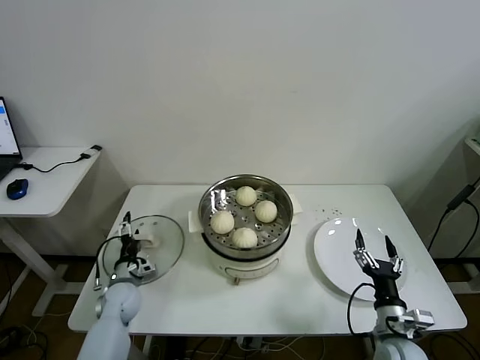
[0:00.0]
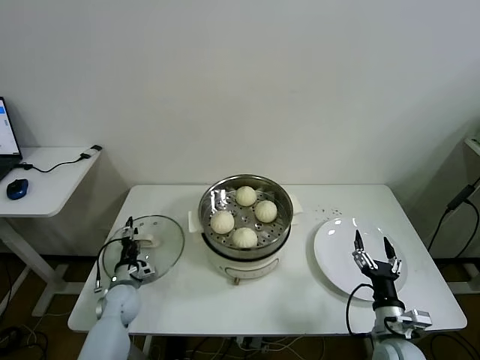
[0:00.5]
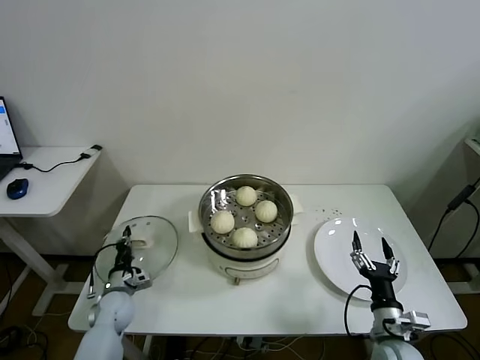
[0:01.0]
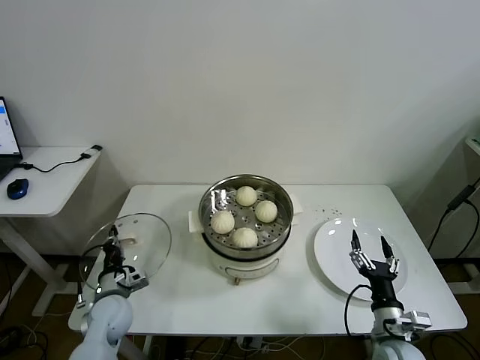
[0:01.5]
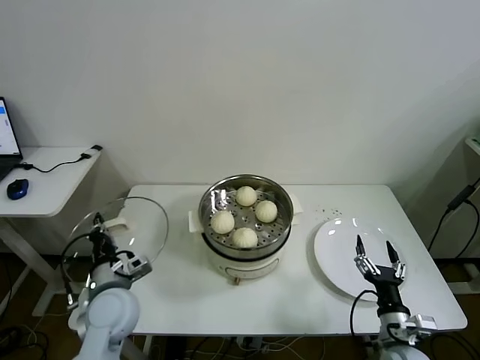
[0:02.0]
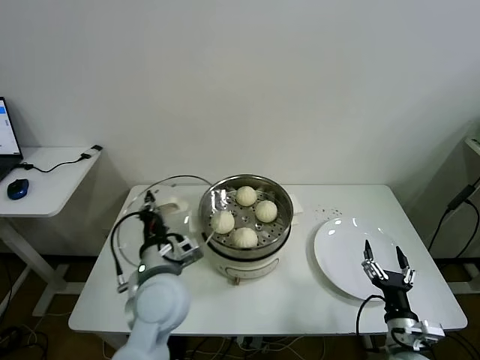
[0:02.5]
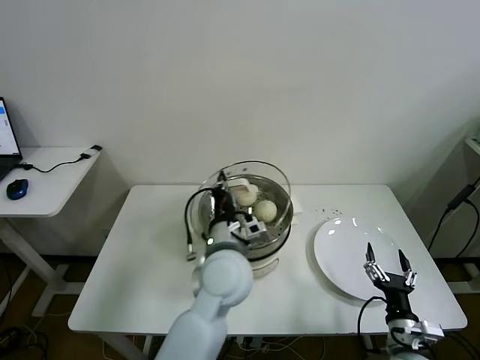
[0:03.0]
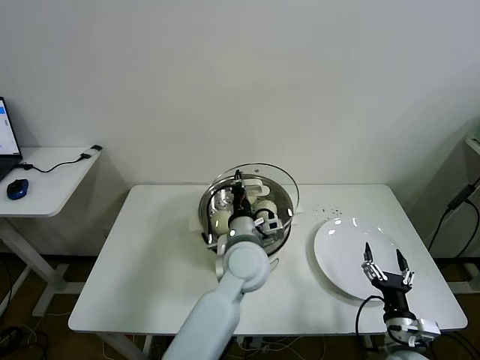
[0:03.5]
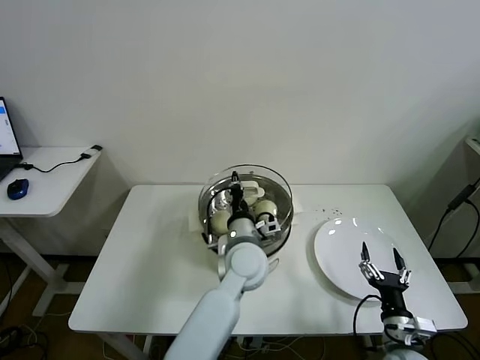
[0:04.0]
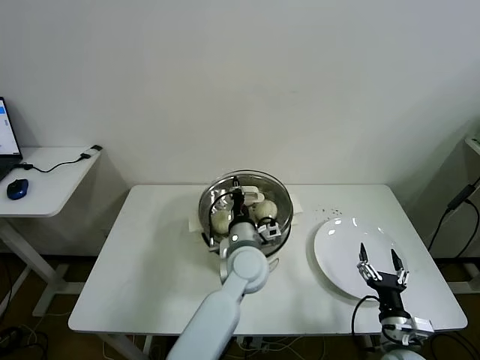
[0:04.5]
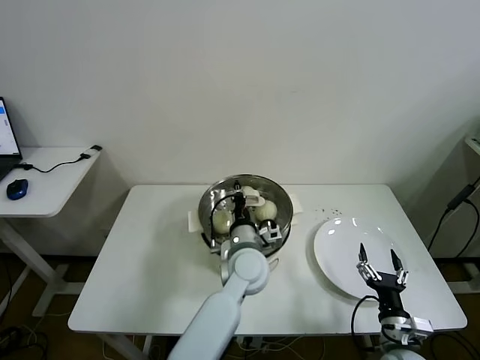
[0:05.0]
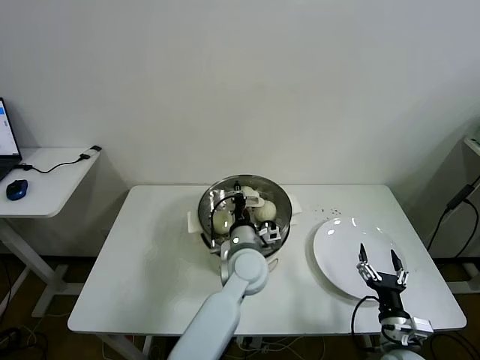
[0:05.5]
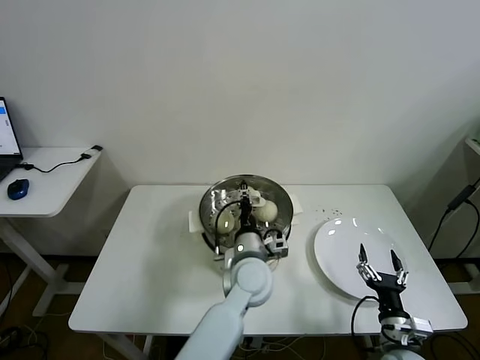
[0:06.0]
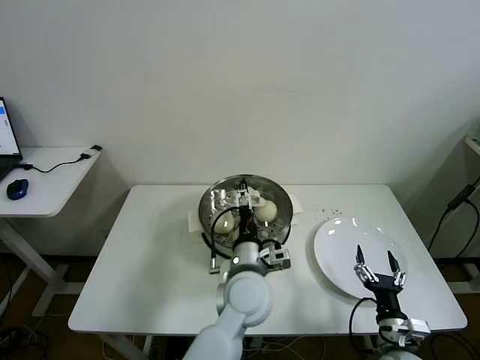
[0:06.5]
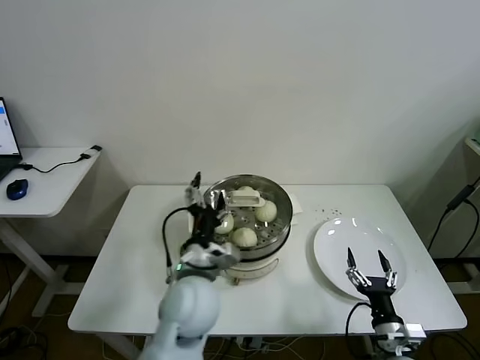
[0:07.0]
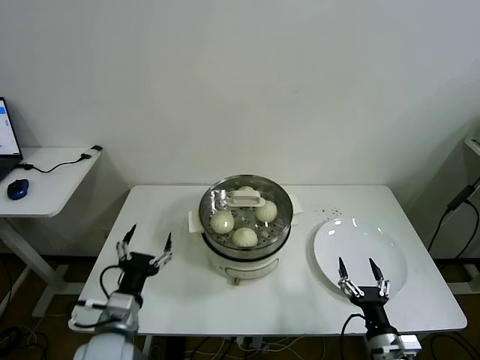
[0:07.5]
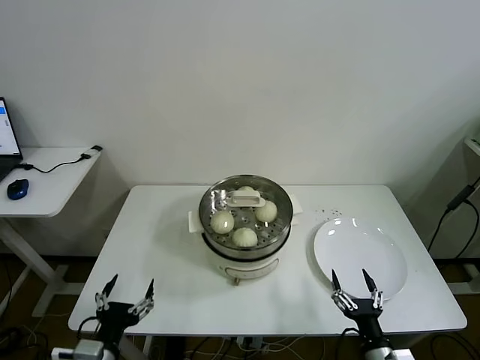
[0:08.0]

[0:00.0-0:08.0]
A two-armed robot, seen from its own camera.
Task of the whole recording: take steamed baozi put them in steamer then cover it.
Step, 0:01.5 to 0:06.0: Place the pot lid on the steamer with left gripper.
0:00.0 to 0:02.0: The left gripper is displaced upward, backward and to the right by about 20 cm, and closes its fingers.
0:02.0 to 0:04.0: The left gripper heads to the right, covering approximately 25 cm.
0:04.0 to 0:06.0: The left gripper opens its fingers.
0:06.0 to 0:08.0: The right gripper moves backward, about 5 cm. Meanwhile the left gripper goes approximately 35 cm to the left and backward, and opens up.
